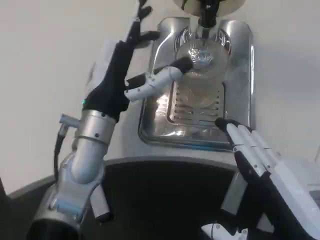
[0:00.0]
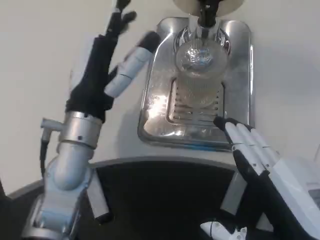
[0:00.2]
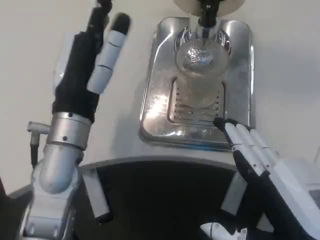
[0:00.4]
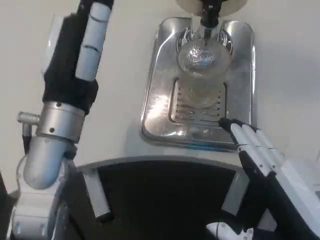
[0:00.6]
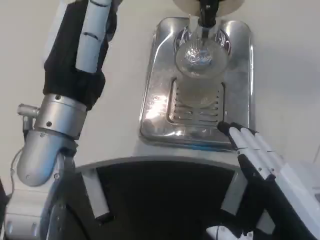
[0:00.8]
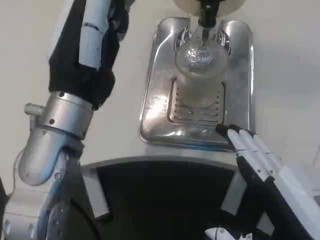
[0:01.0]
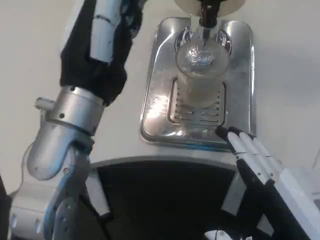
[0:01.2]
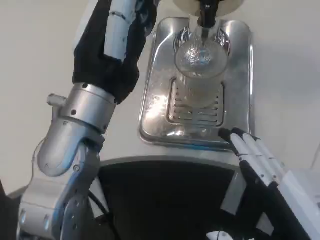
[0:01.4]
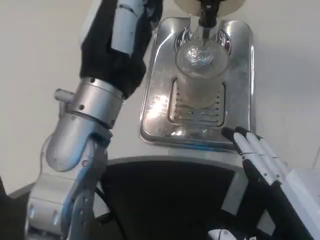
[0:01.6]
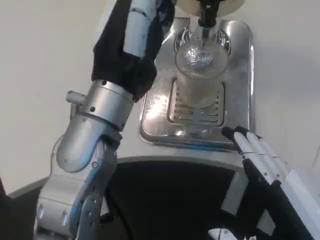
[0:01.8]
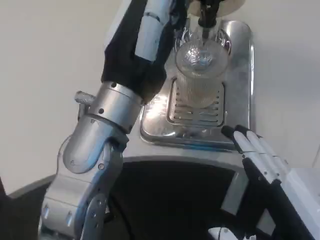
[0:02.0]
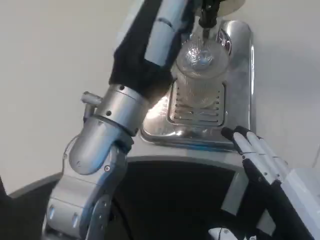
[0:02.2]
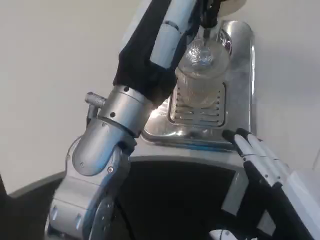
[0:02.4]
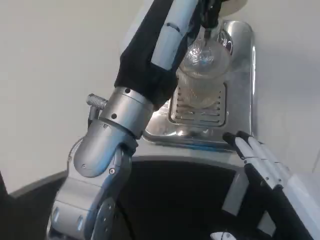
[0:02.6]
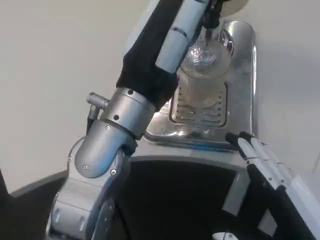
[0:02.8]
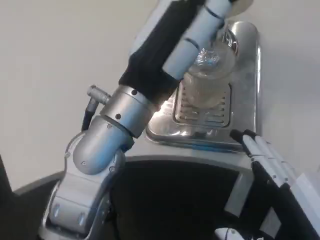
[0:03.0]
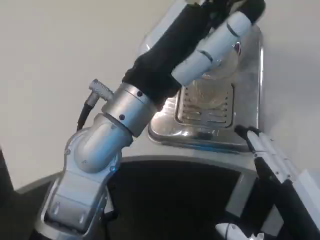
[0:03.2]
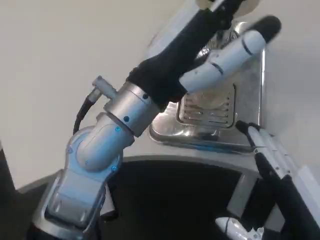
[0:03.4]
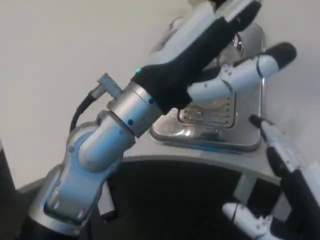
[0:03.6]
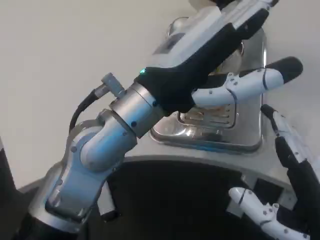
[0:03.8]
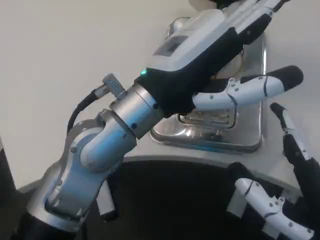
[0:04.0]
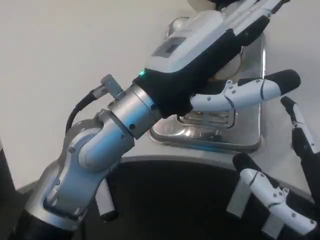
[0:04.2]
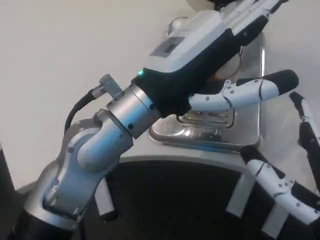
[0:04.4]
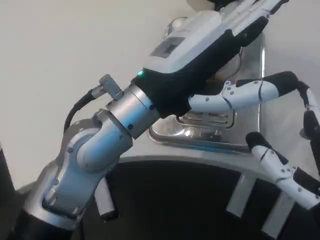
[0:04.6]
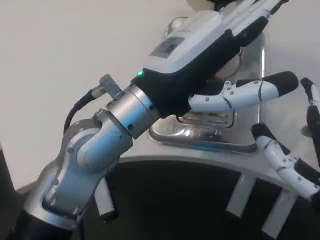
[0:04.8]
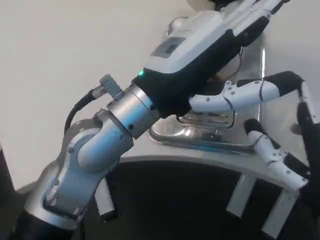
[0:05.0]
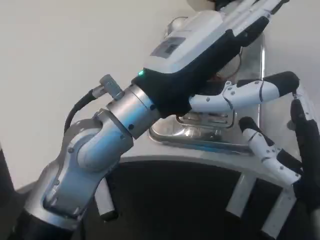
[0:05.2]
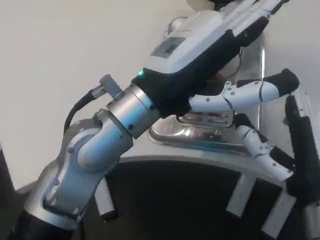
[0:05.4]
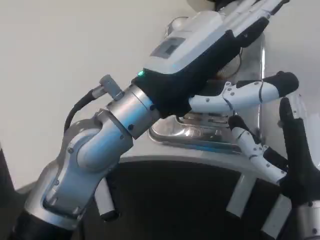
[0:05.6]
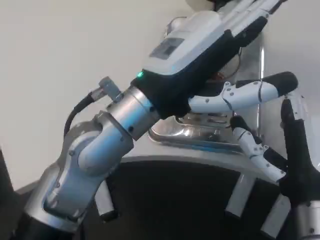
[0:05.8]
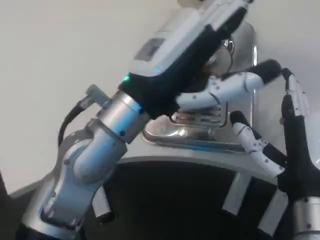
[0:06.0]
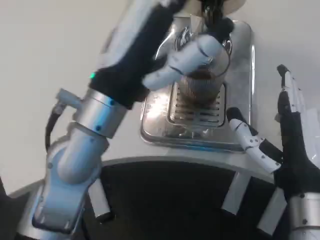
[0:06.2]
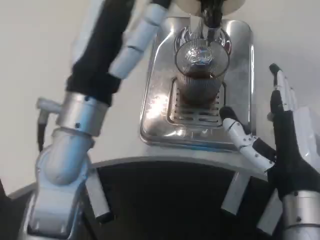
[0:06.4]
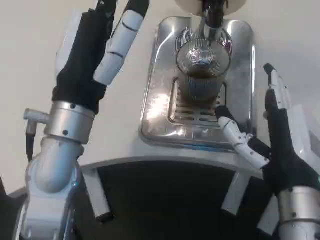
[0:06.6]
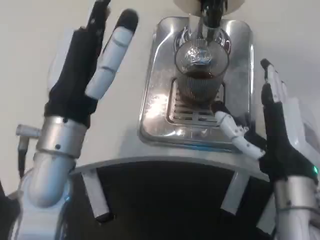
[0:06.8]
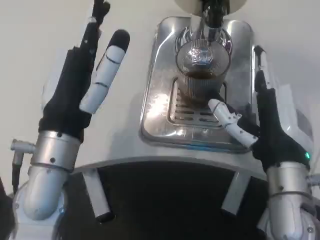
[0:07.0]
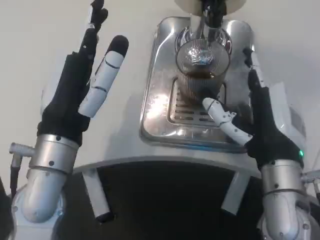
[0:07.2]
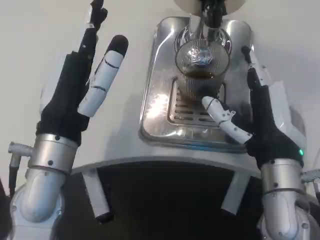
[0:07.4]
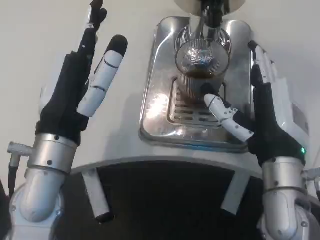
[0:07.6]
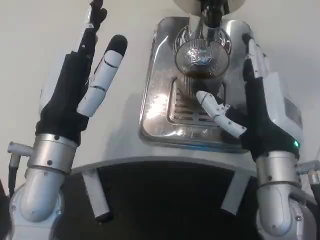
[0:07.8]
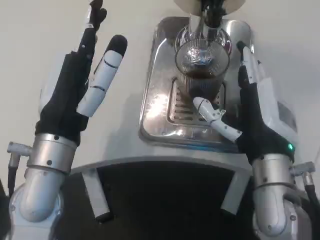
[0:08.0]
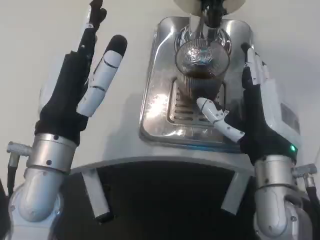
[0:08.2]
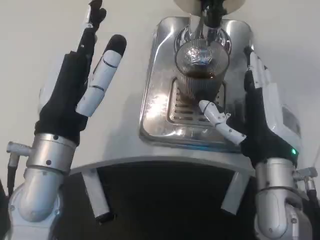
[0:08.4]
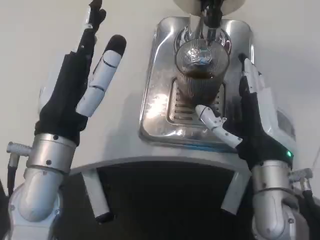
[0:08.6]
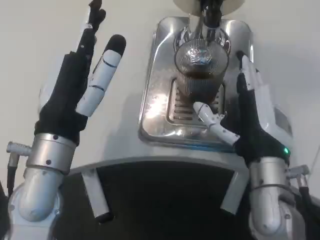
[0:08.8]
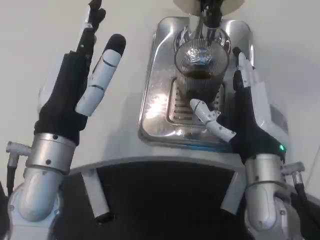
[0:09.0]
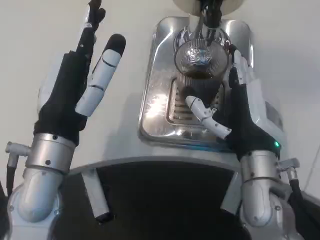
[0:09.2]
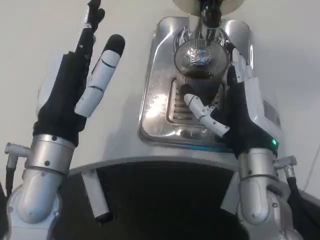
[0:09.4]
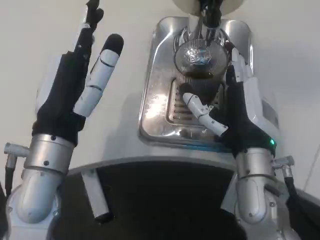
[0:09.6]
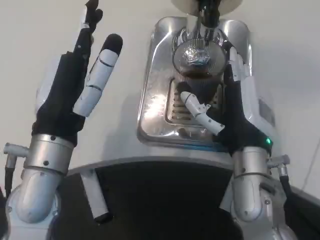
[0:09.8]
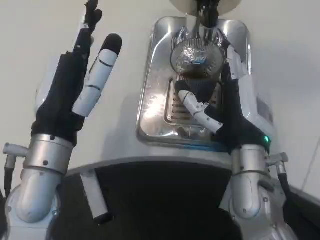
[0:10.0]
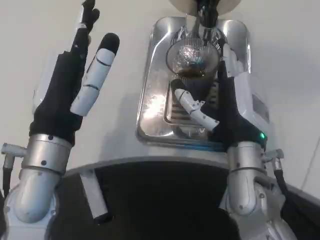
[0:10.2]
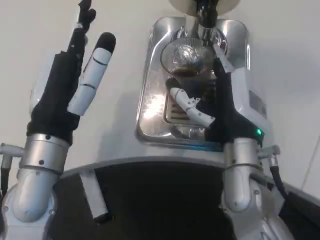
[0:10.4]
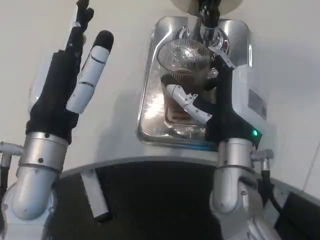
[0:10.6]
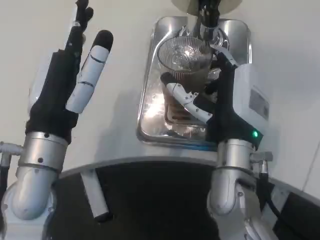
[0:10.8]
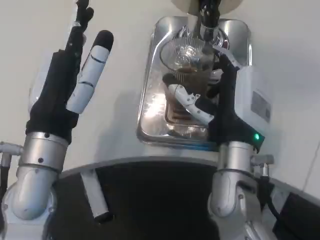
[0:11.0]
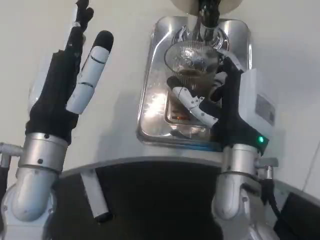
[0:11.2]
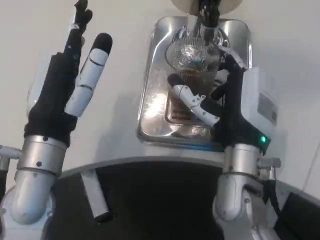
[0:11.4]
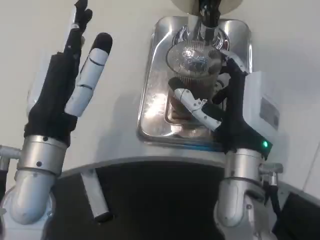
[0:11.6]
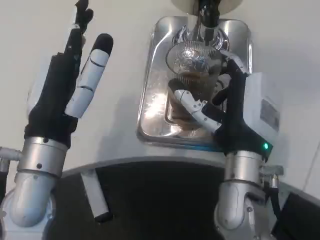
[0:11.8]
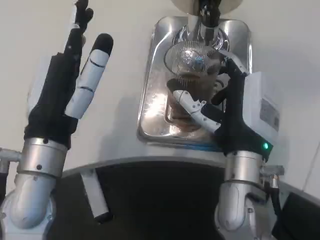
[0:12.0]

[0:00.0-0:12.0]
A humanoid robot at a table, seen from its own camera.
Task of the whole recording: Grasp the cup under the faucet to collect the drink, then remove the cup.
0:00.0 to 0:01.6: The left hand heads upward and backward, covering some 10 cm.
0:04.4 to 0:06.0: The right hand goes approximately 10 cm forward.
0:06.0 to 0:07.6: The right hand moves approximately 5 cm. Meanwhile the left hand is displaced to the left and downward by roughly 10 cm.
0:07.6 to 0:09.0: The hands move only a little.
0:10.4 to 0:12.0: The hands make only small movements.

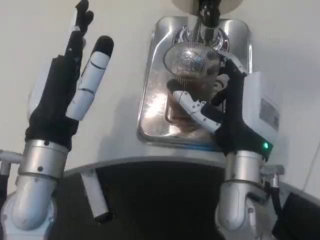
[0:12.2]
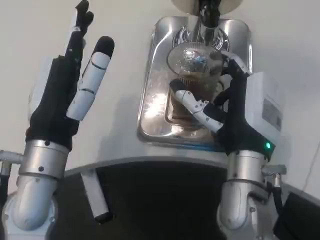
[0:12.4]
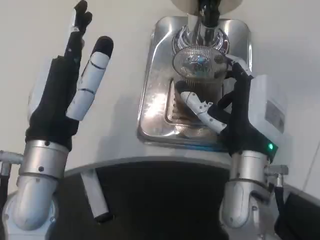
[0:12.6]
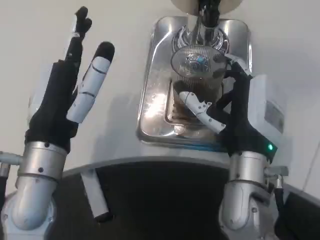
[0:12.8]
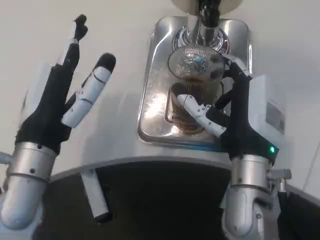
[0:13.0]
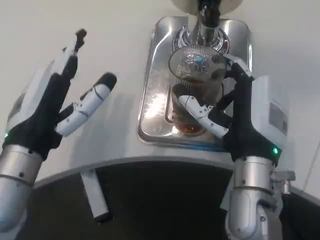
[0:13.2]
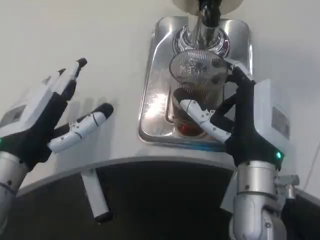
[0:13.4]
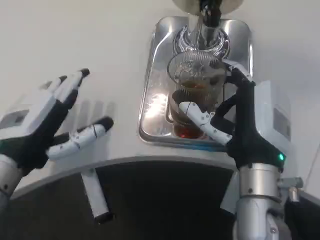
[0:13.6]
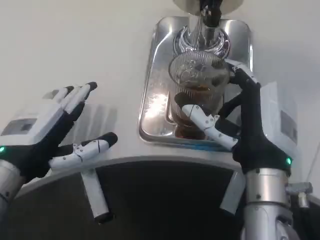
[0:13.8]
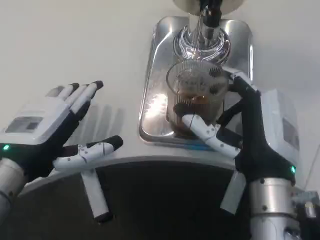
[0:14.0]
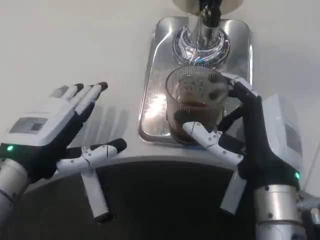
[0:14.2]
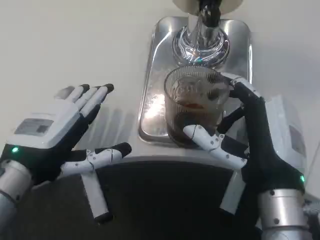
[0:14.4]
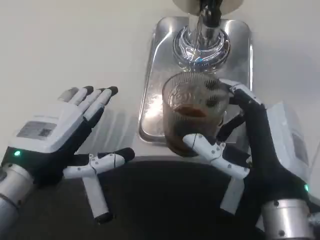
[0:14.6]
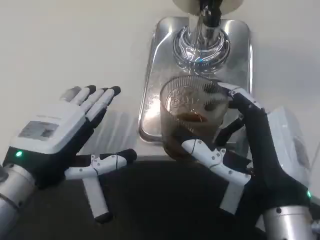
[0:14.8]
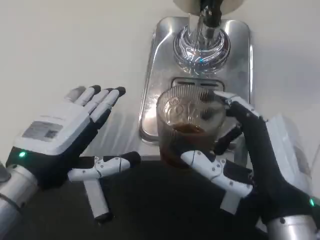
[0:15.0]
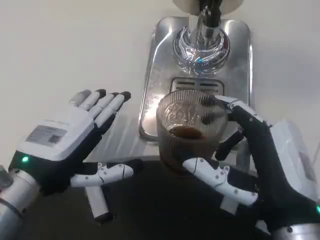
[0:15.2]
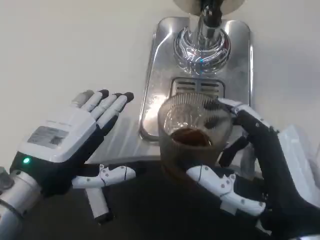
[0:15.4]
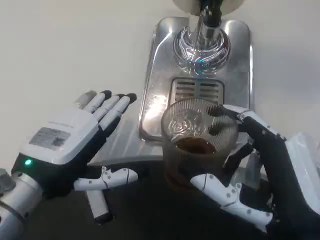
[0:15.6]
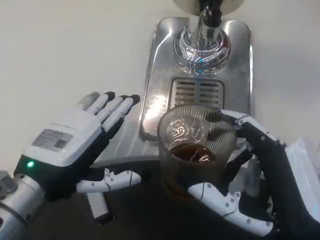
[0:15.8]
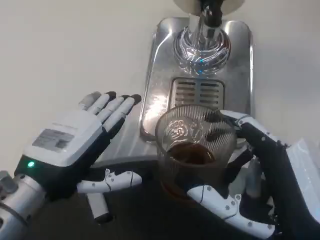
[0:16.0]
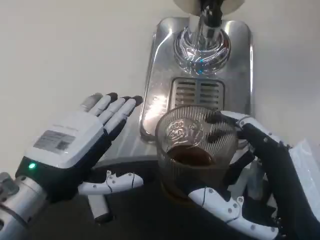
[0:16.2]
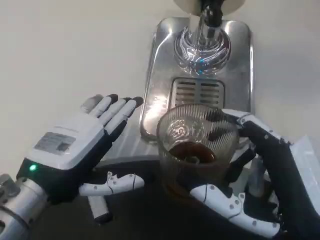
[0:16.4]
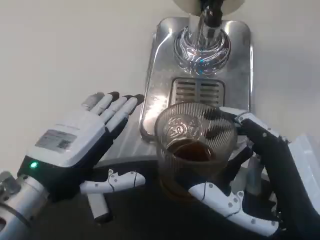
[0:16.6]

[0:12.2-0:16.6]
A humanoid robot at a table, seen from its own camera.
Task of the whole recording: Grasp the cup under the faucet to collect the drink, then remove the cup.
0:12.2 to 0:13.6: The left hand moves to the left, some 5 cm.
0:13.6 to 0:15.2: The right hand shifts approximately 10 cm backward.

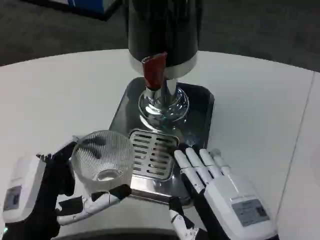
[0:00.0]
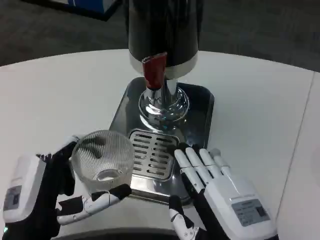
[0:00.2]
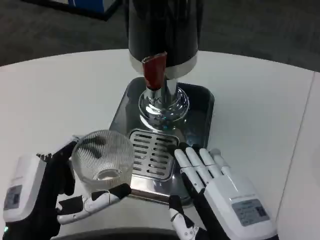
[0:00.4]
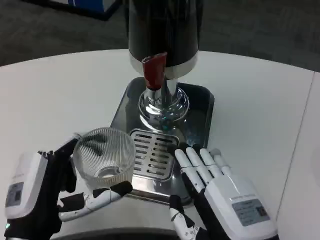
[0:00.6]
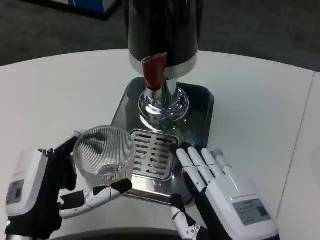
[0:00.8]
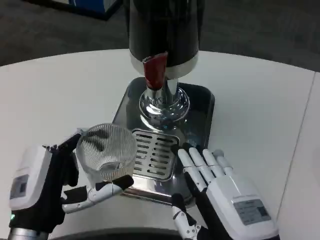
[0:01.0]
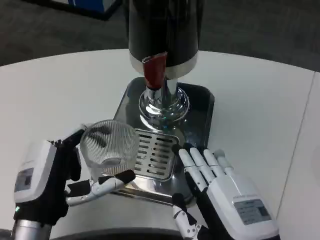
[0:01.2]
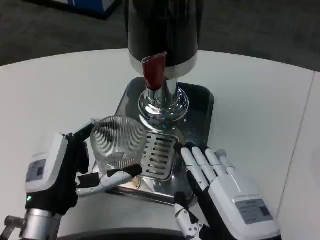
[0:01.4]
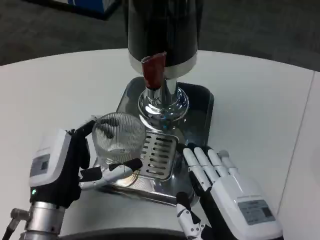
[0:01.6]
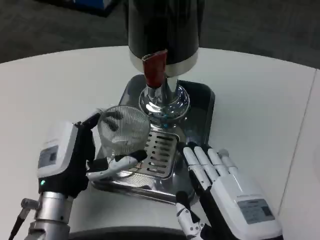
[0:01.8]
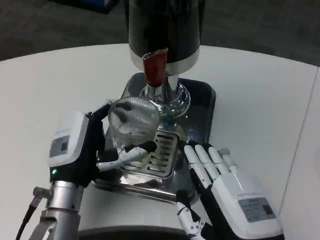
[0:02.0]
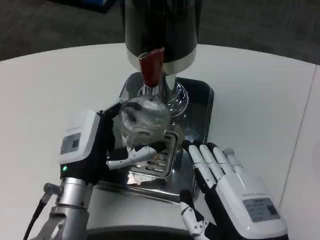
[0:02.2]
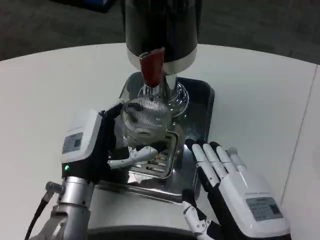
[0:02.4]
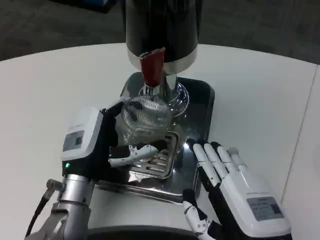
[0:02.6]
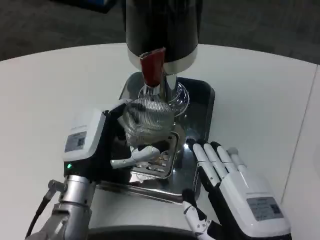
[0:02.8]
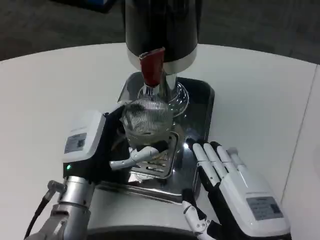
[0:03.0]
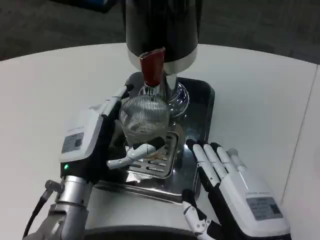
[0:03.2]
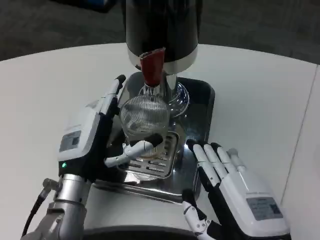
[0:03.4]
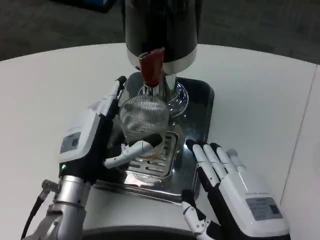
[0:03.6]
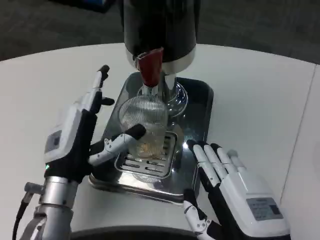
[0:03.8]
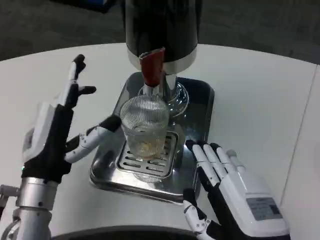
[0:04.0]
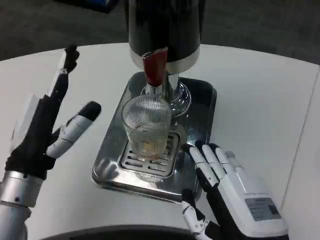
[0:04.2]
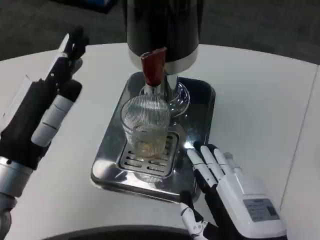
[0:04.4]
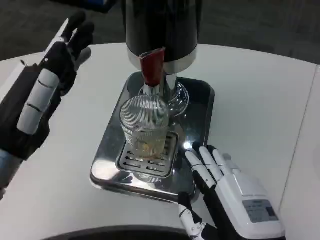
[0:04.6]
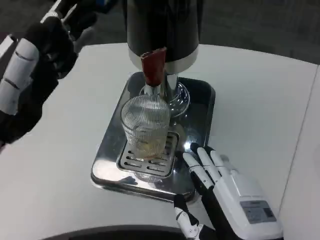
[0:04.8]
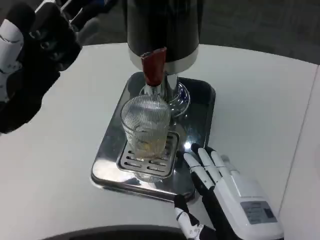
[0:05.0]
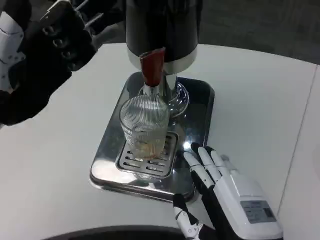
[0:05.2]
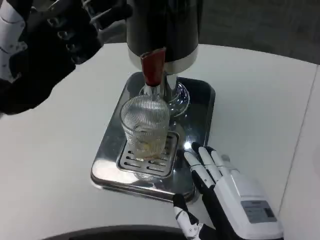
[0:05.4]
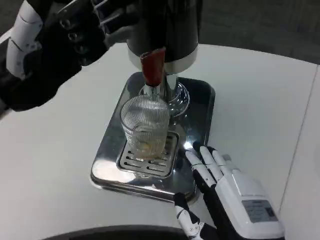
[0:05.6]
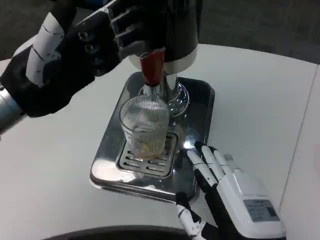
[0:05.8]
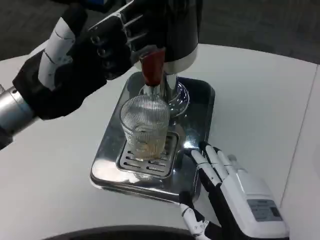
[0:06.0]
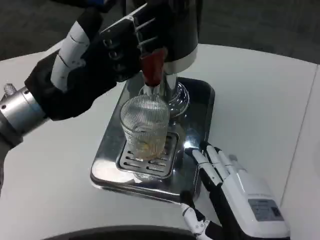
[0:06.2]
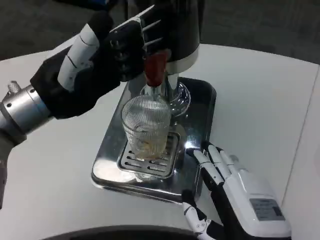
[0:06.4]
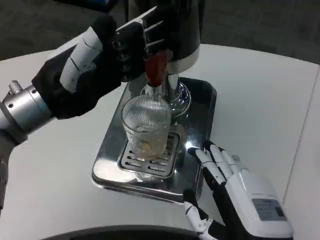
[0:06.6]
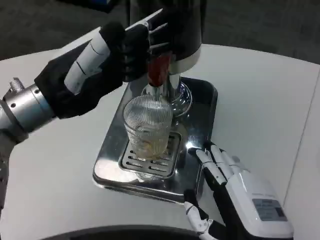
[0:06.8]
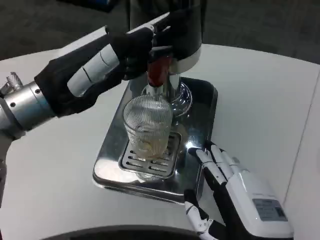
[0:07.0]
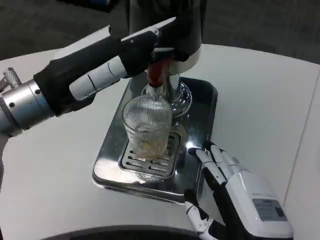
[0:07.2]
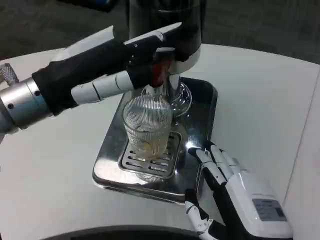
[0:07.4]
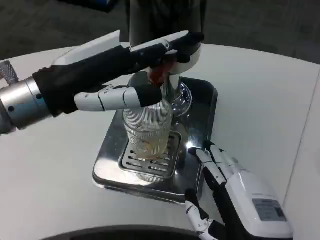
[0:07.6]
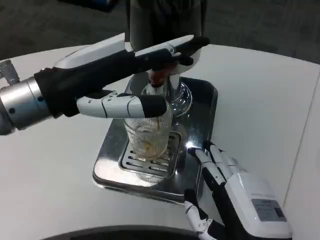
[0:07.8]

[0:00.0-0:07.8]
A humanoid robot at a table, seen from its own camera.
Task of the whole recording: Grasp the cup under the faucet to collect the drink, then remove the cup.
0:00.0 to 0:01.6: The left hand heads forward, covering some 5 cm.
0:03.2 to 0:04.6: The left hand moves upward, to the left and backward, approximately 15 cm.
0:04.6 to 0:06.2: The left hand shifts about 10 cm upward and forward.
